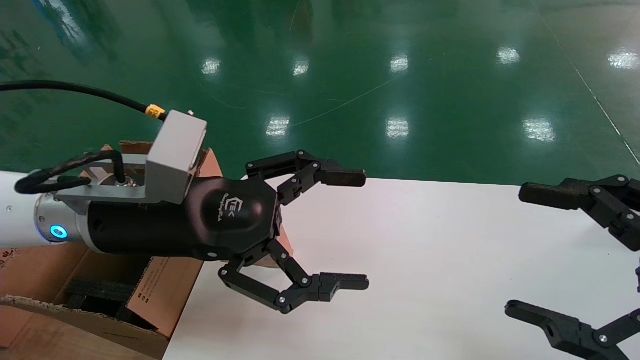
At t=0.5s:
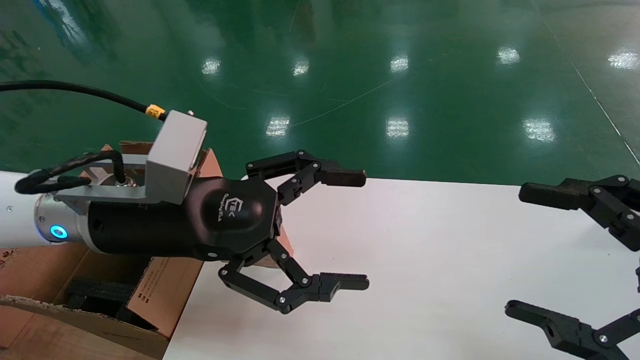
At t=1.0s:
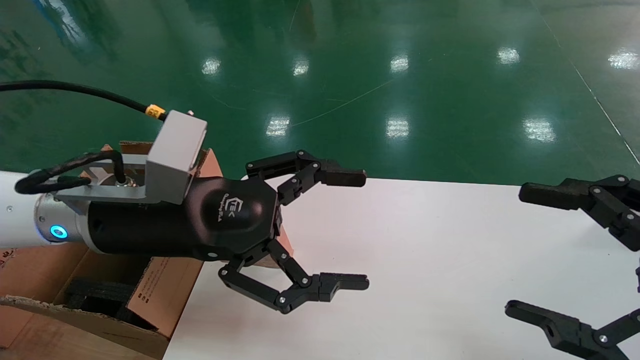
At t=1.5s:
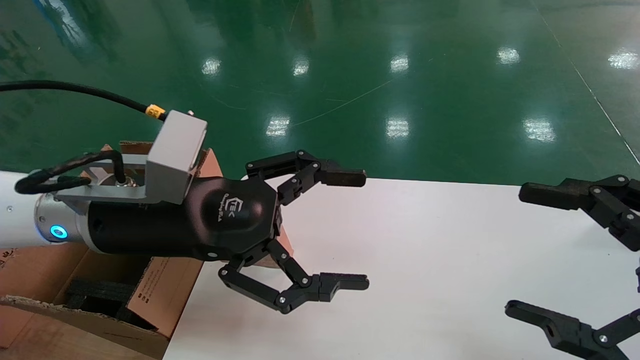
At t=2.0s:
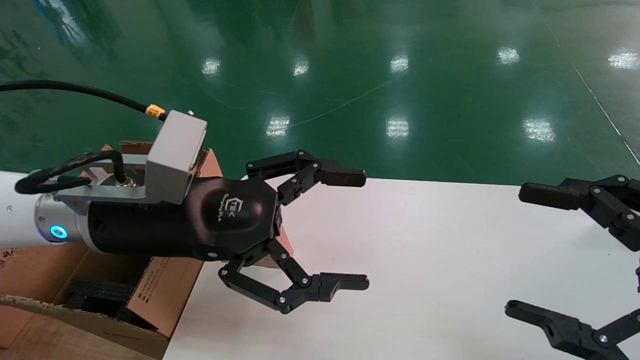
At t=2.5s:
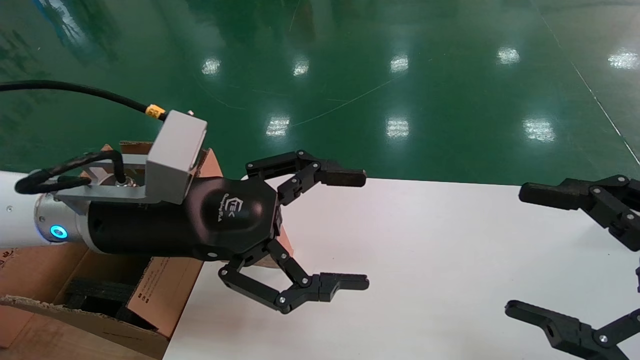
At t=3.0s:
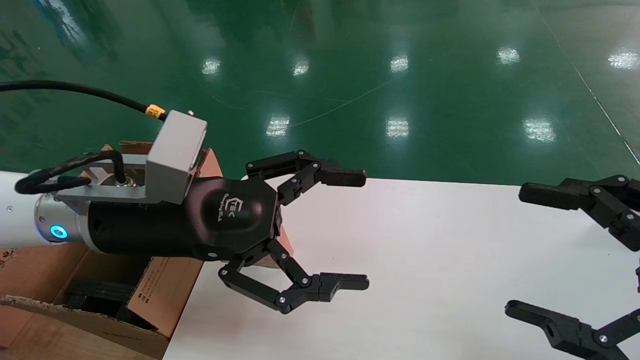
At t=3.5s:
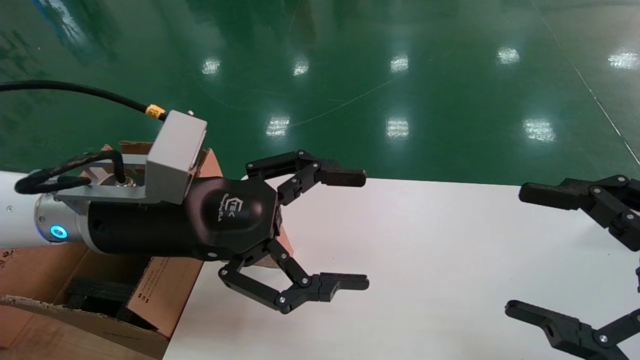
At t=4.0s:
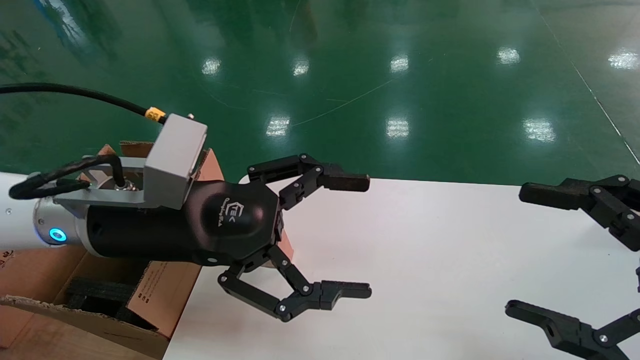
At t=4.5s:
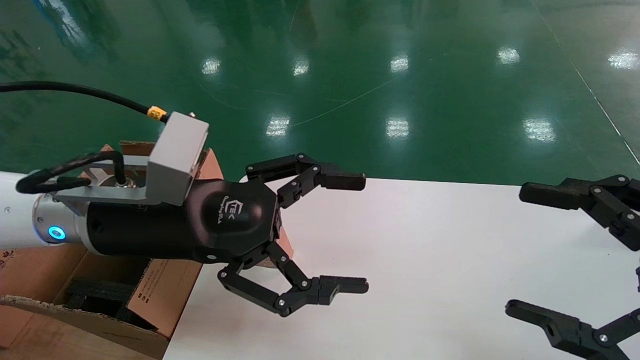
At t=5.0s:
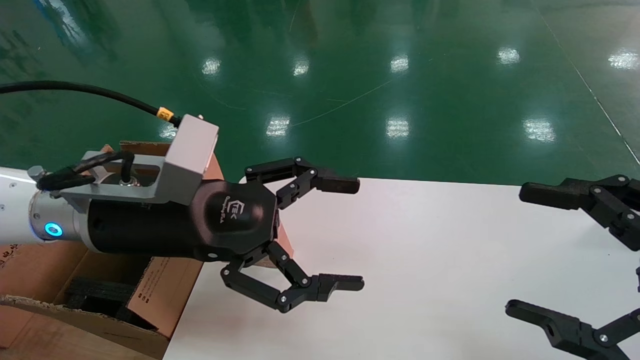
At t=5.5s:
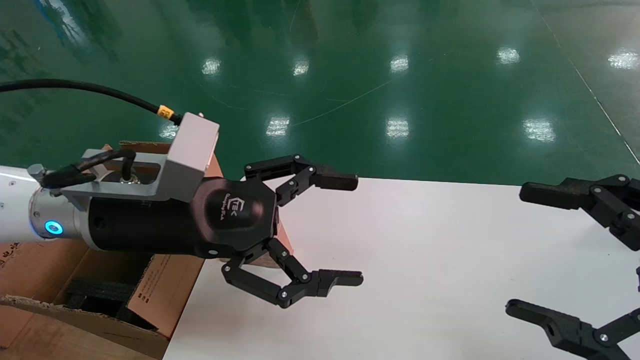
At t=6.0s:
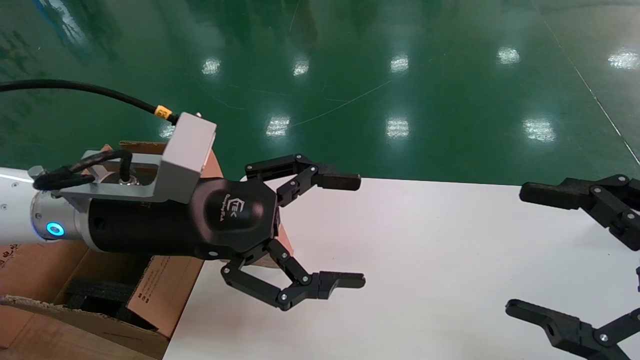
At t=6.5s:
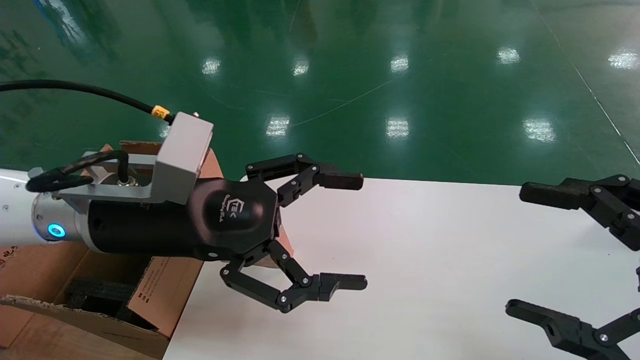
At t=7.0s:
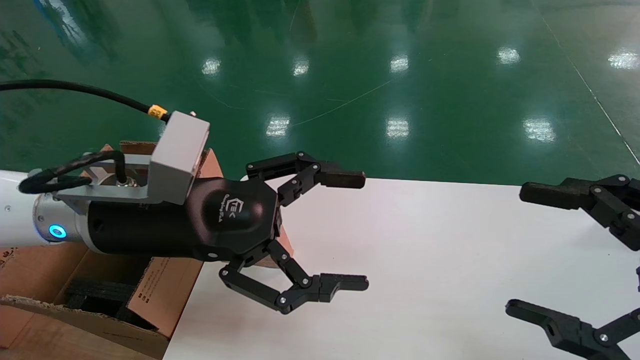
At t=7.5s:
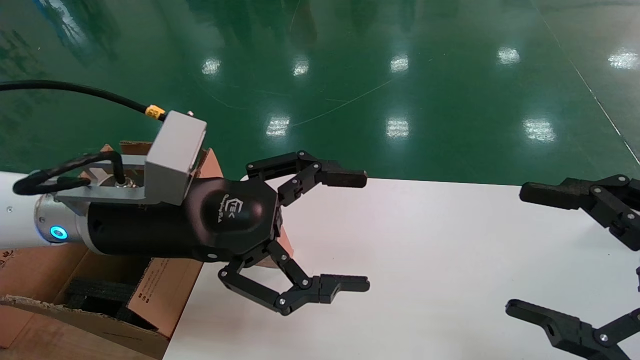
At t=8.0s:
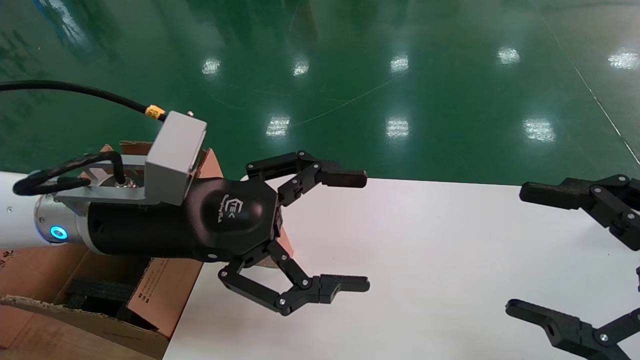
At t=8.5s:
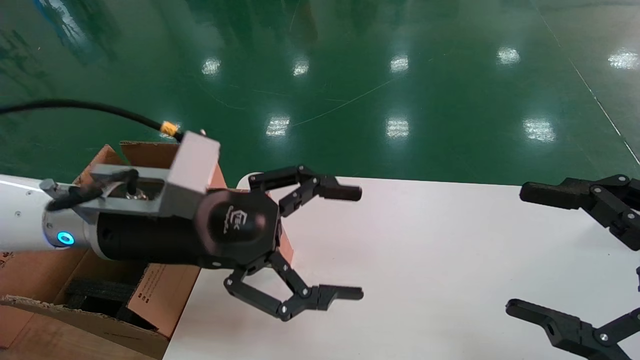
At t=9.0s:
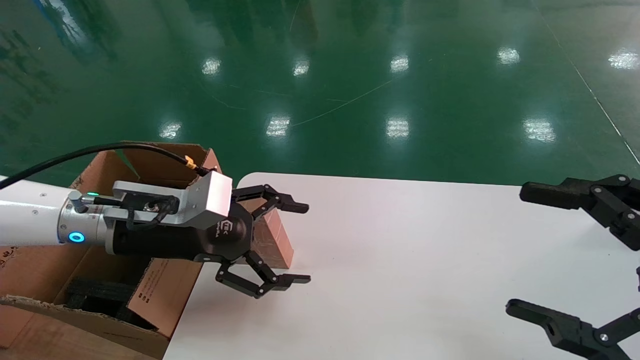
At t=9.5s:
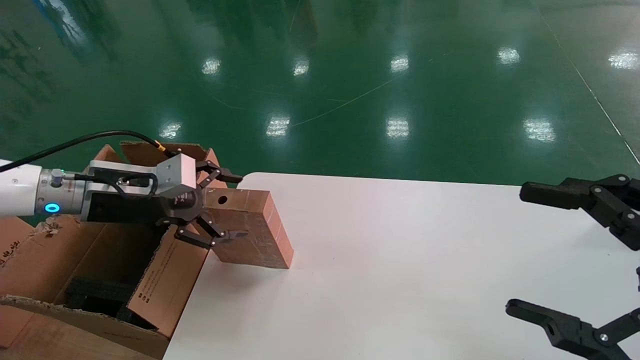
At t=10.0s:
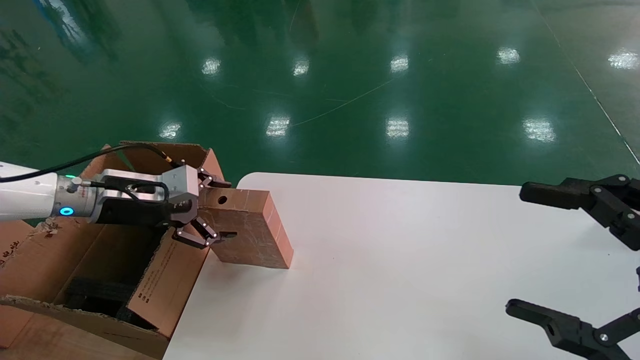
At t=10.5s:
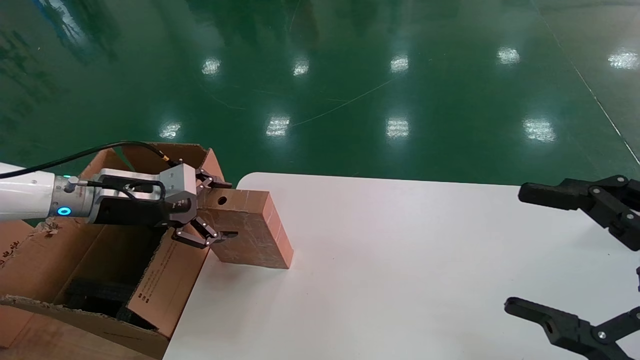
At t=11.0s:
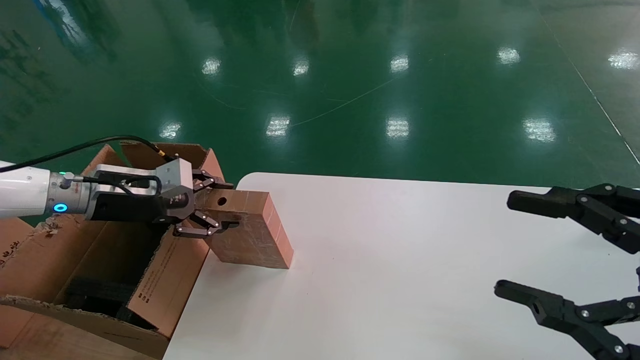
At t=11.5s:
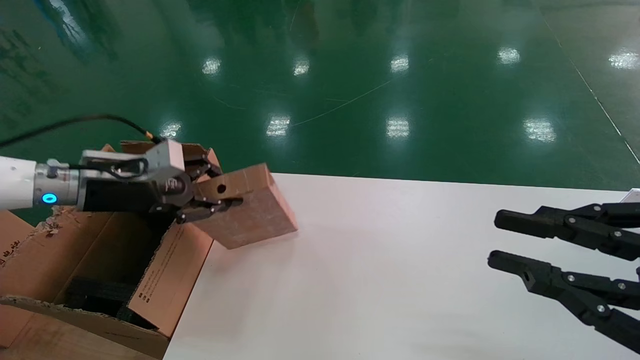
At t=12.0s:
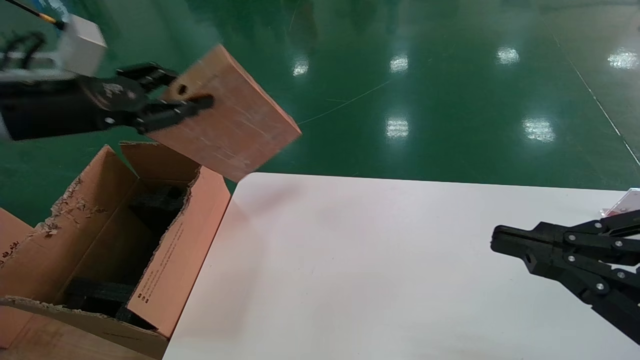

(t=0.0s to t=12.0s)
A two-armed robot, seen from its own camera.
Task of the whole recording: put the box on the table into the big box.
Step, t=9.0s - t=11.5s: Pick up the mouse and the power cord paper box.
t=0.0s - t=4.0s: Neither gripper changes place.
t=4.0s - t=6.0s: The grippers move only a little.
t=6.0s - t=8.0s: Neither gripper changes place.
t=8.0s - t=10.0s: The left gripper is displaced to the left and forward by some 20 cm.
t=10.0s - t=12.0s: The left gripper is displaced upward and backward by some 15 cm, and closes up; the right gripper closes.

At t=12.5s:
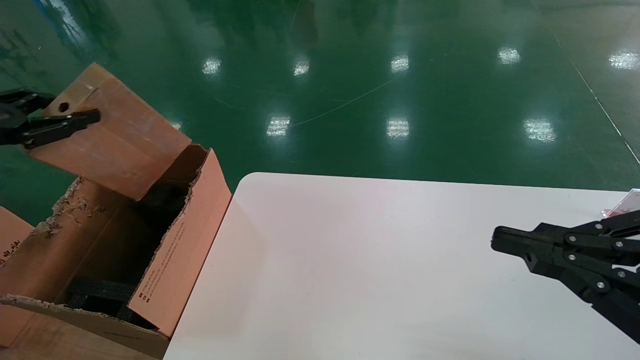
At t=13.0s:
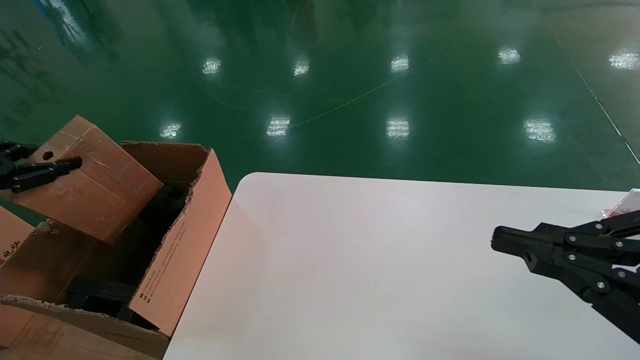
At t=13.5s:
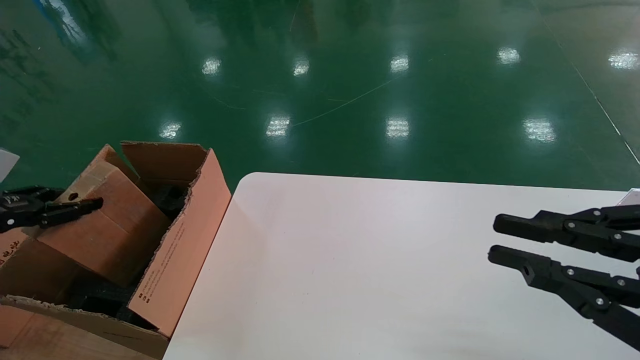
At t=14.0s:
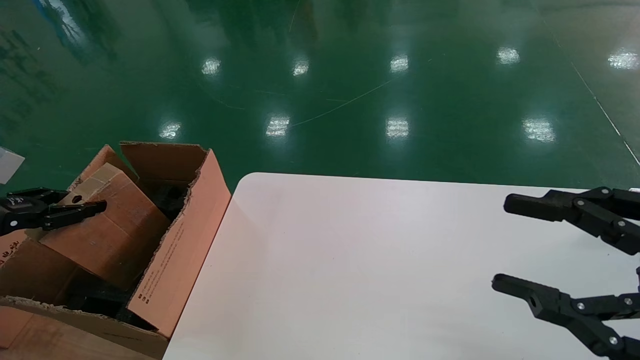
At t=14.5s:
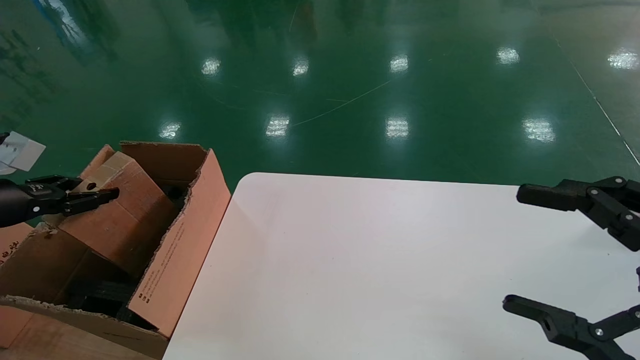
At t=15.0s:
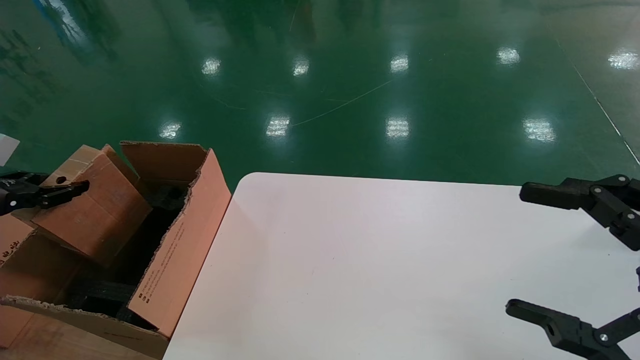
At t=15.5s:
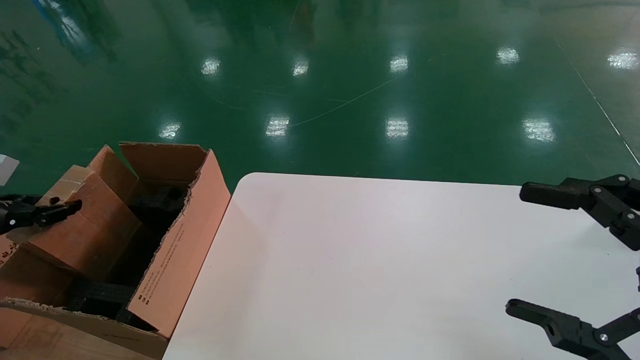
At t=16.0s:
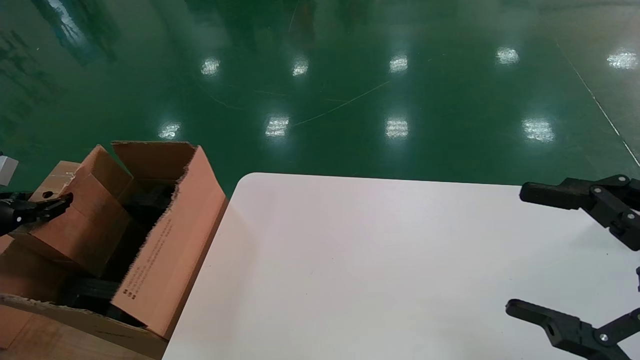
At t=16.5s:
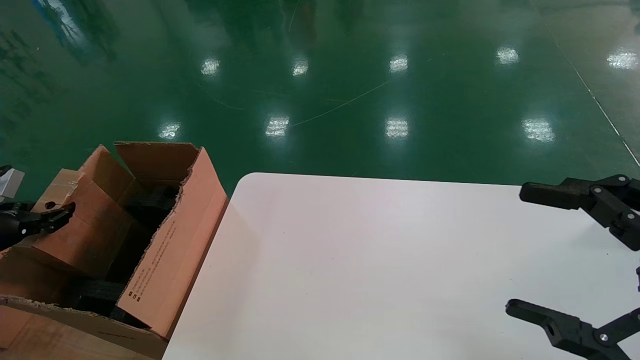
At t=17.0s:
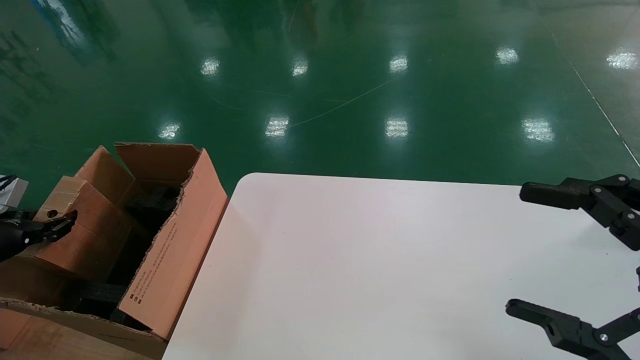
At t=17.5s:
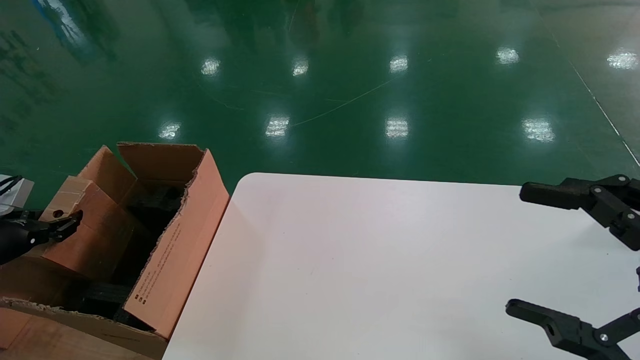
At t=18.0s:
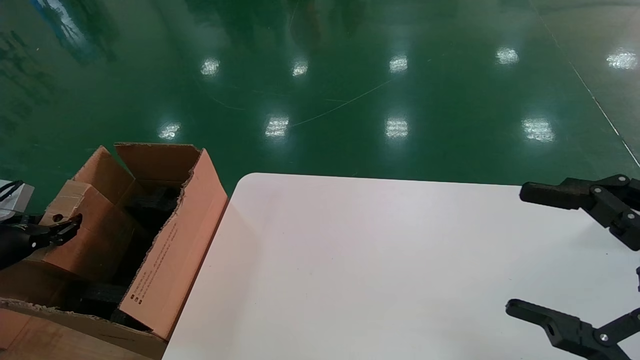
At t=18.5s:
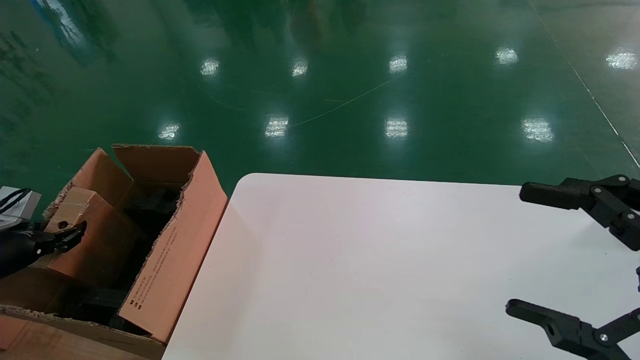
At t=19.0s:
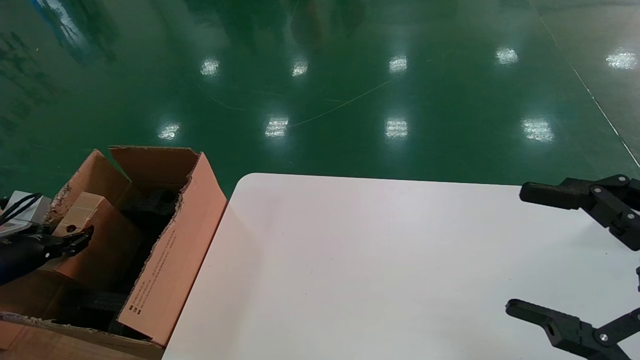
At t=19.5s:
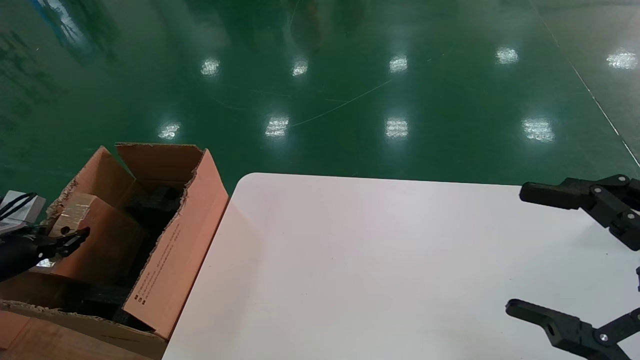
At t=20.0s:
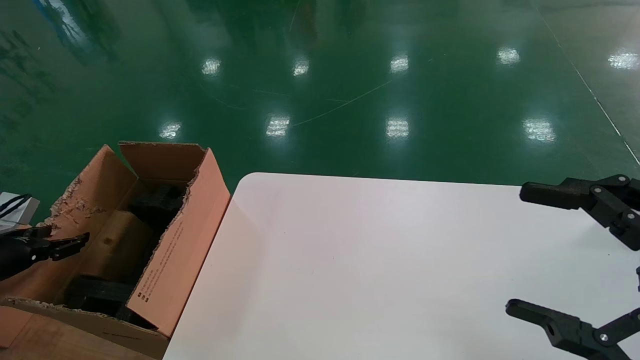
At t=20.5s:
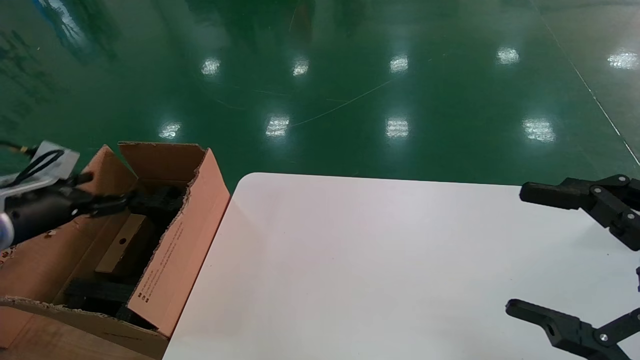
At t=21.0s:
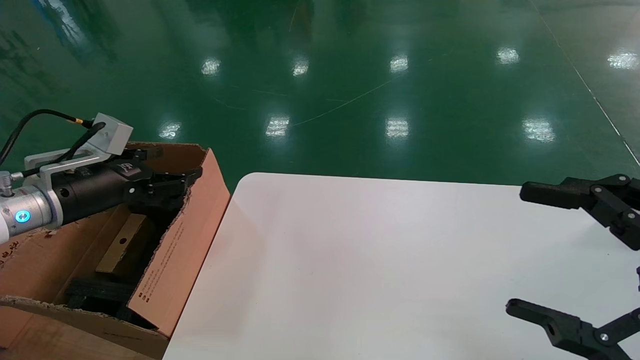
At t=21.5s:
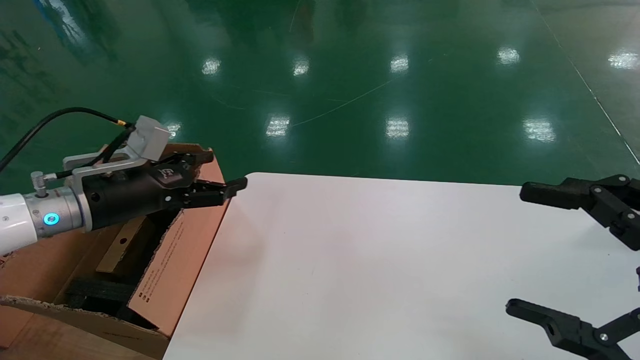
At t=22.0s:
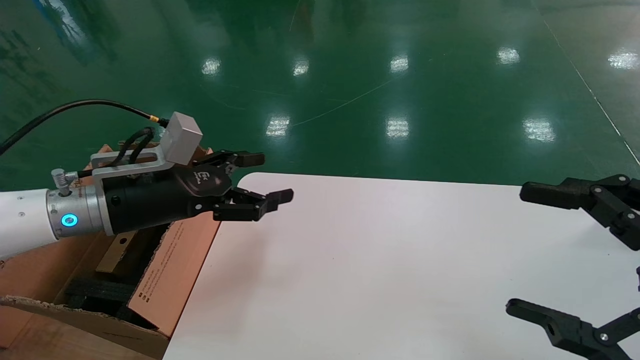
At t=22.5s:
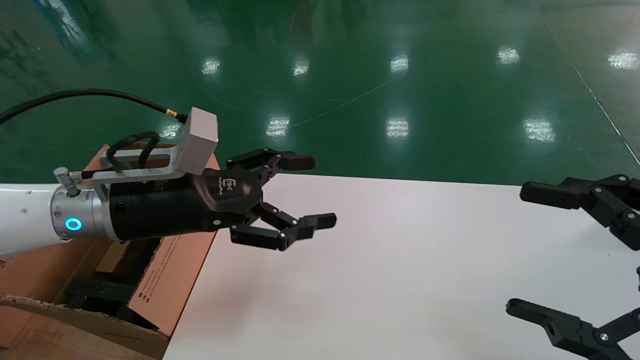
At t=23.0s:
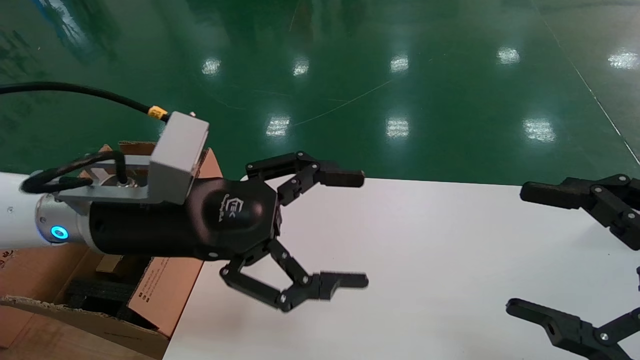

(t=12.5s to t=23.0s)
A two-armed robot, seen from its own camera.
Task of the whole recording: put the box on the table into the big box.
Step, t=12.5s - t=20.0s: Place the mouse and the power cord paper box into the container.
t=12.5s - t=14.5s: The right gripper opens up. The left gripper moves downward, approximately 10 cm.
t=14.5s - t=16.5s: The left gripper goes about 5 cm downward.
t=16.5s - t=19.0s: The left gripper heads downward, covering about 5 cm.
t=19.0s - t=21.0s: The left gripper heads to the right and upward, covering roughly 20 cm, and opens.
t=21.0s - t=23.0s: The left gripper is displaced to the right by some 20 cm.
